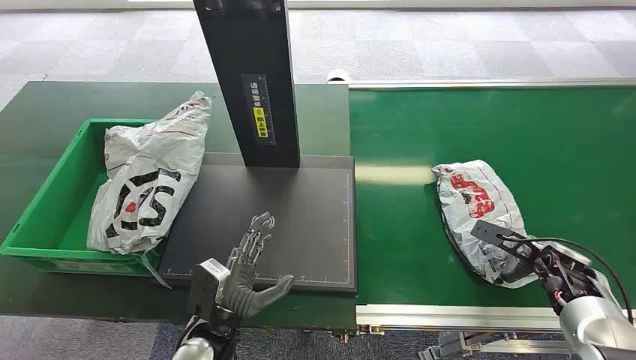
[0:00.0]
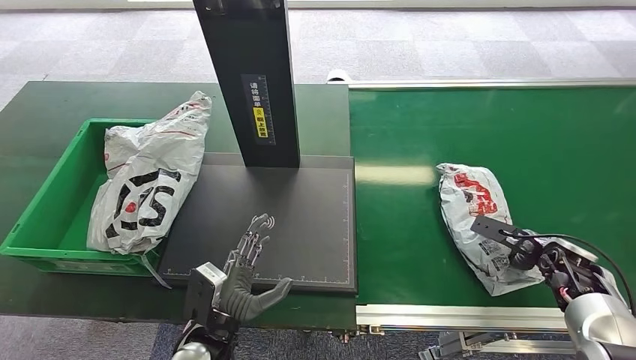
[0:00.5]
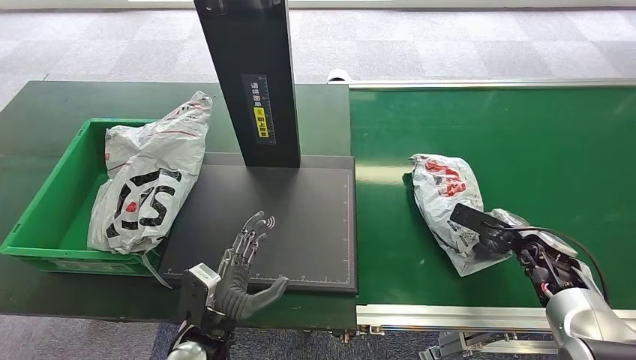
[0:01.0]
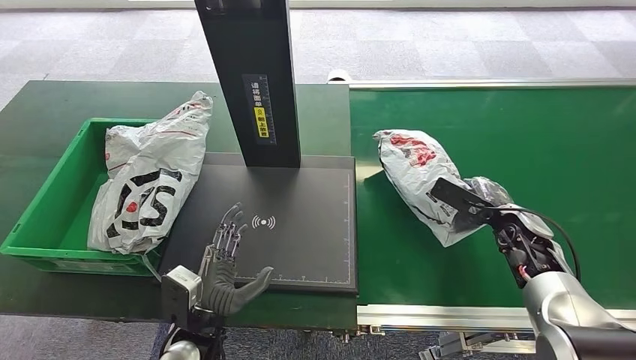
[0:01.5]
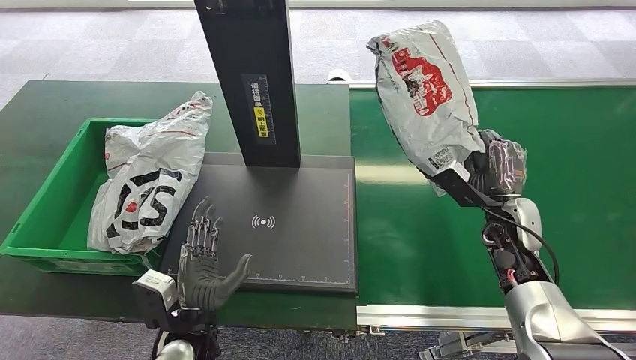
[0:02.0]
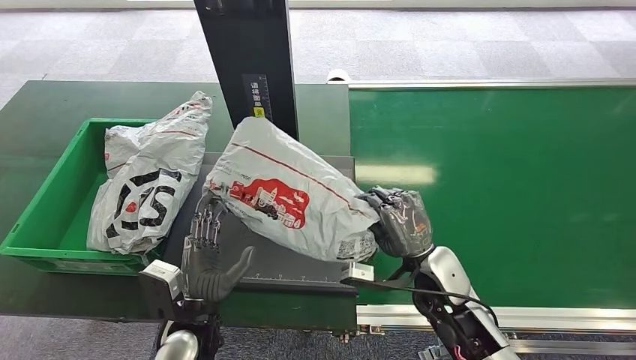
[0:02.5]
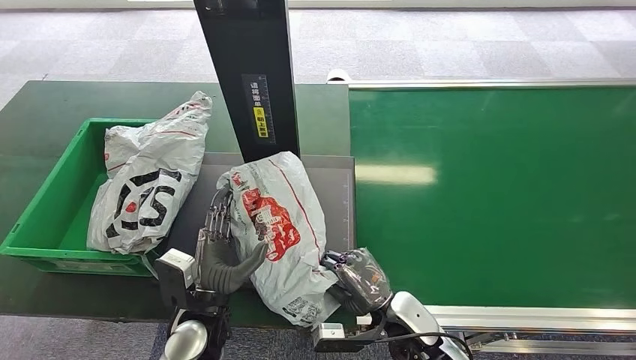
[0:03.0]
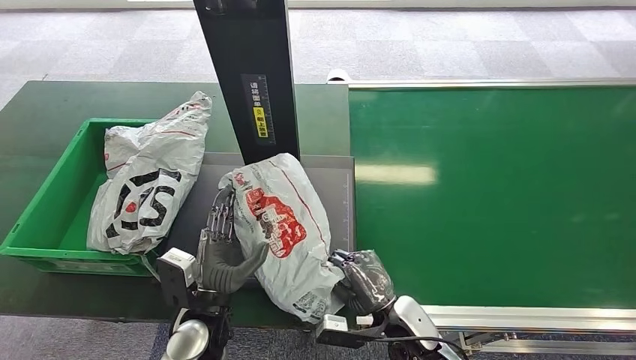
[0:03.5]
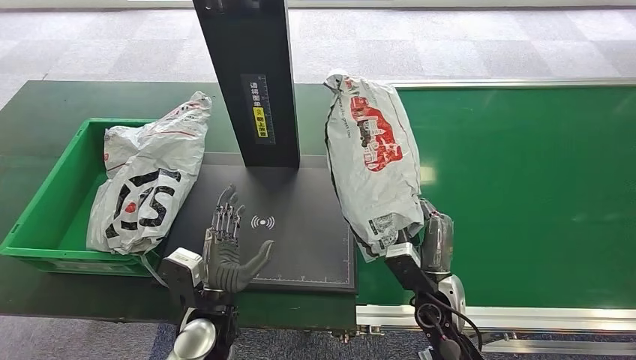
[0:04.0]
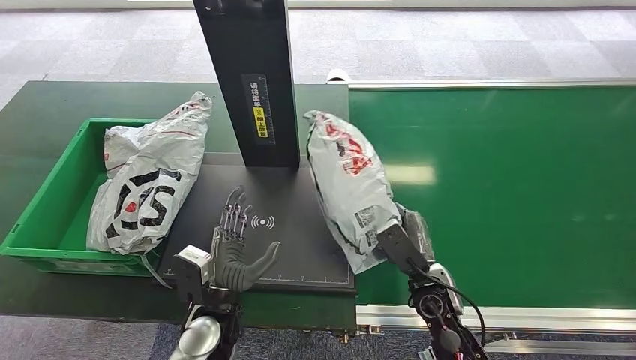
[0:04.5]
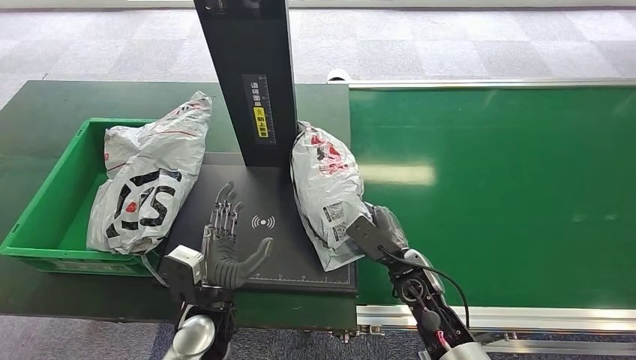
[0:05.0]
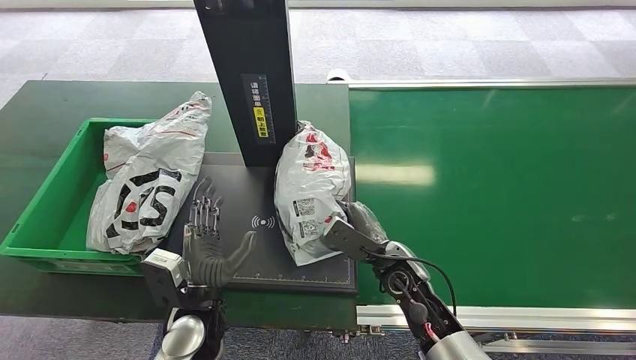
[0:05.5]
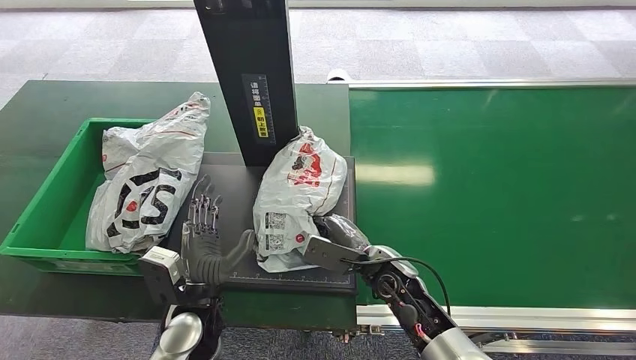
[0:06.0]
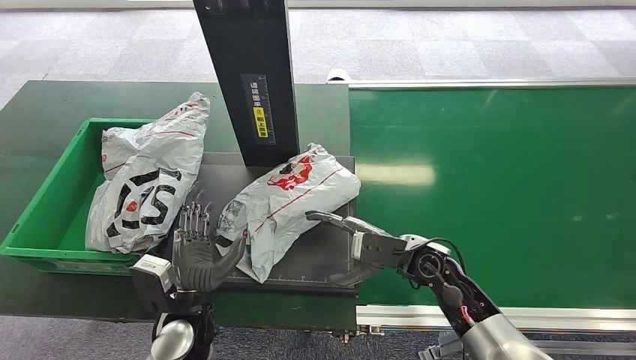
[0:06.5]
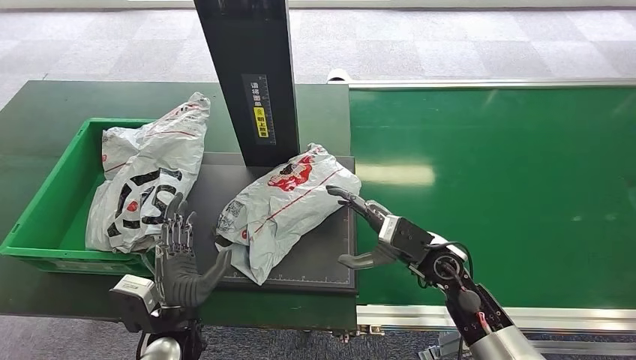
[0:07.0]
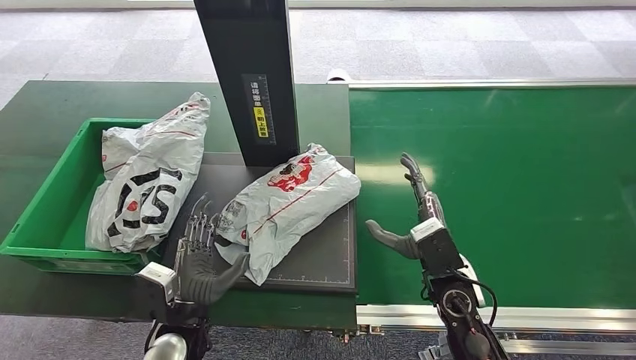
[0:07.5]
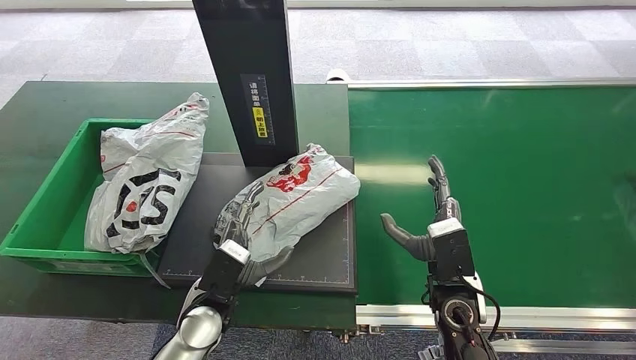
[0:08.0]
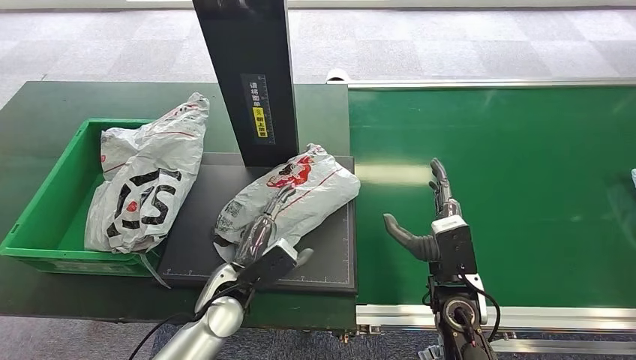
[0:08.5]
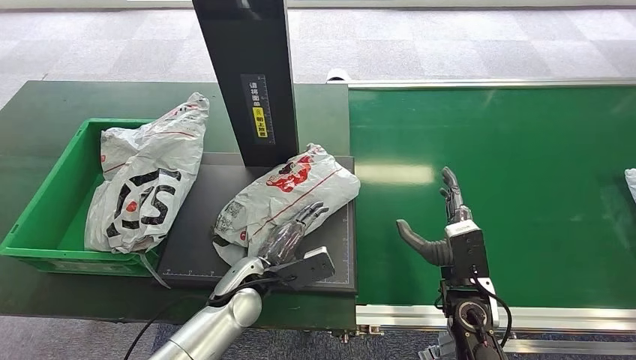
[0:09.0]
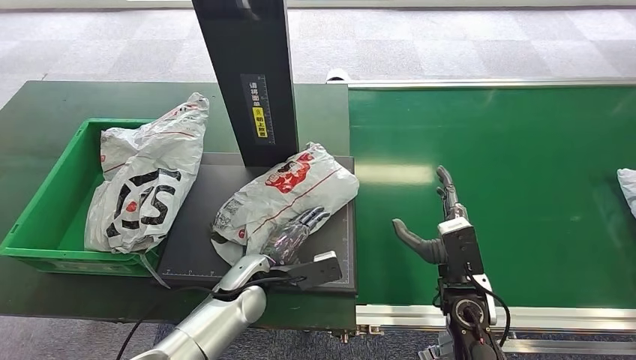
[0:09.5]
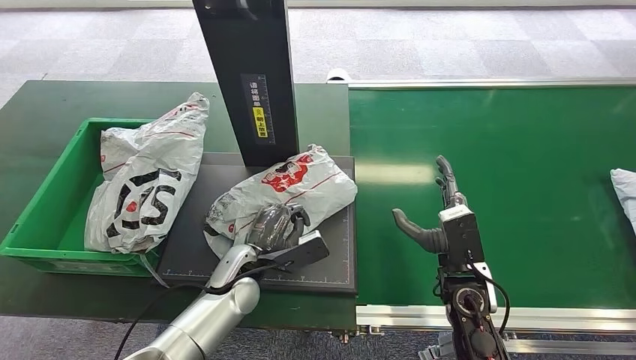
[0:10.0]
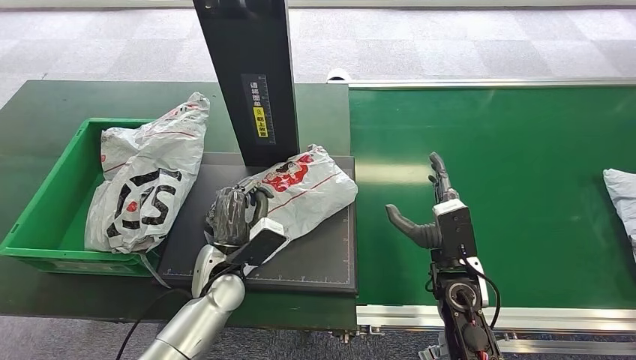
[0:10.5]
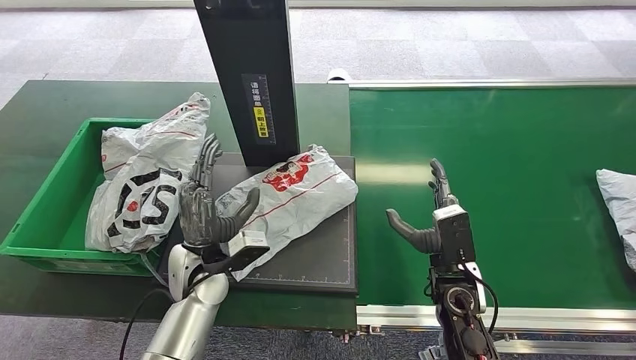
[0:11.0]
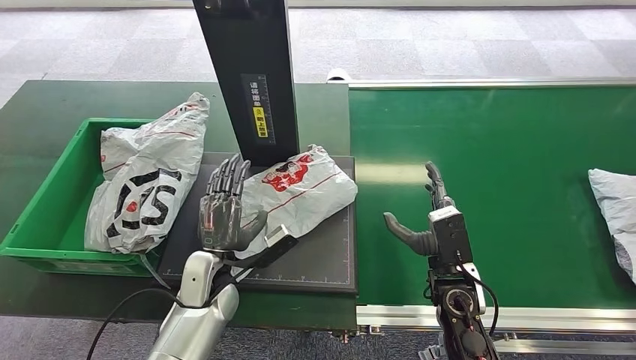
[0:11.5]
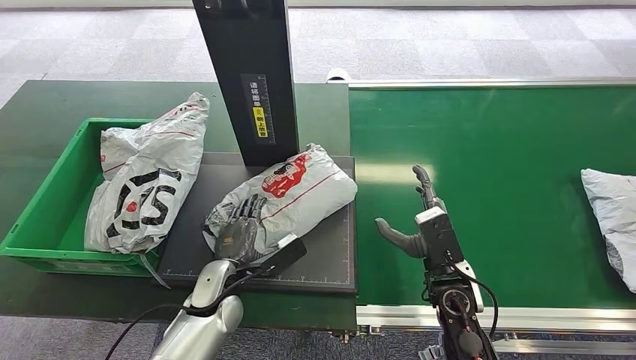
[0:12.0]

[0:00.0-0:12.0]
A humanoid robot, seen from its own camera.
Step, 0:00.0 to 0:02.0: Pick up the package from the conveyor belt.
Step, 0:02.5 to 0:06.5: Place the package onto the inbound machine.
0:04.0 to 0:06.0: The right hand travels to the left by roughly 5 cm.
0:06.0 to 0:08.0: The right hand travels to the right by about 5 cm.
0:08.0 to 0:10.0: The left hand moves forward, approximately 5 cm.

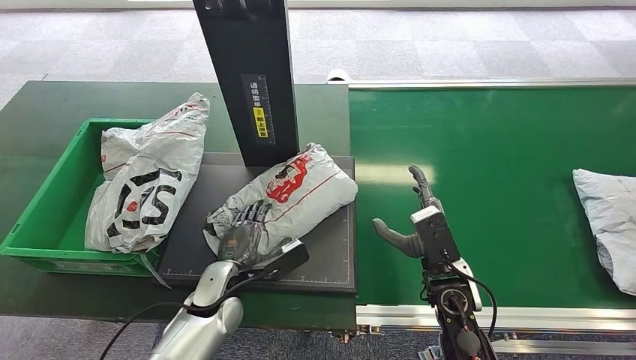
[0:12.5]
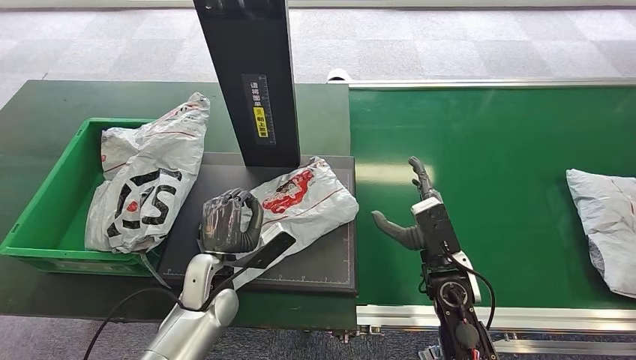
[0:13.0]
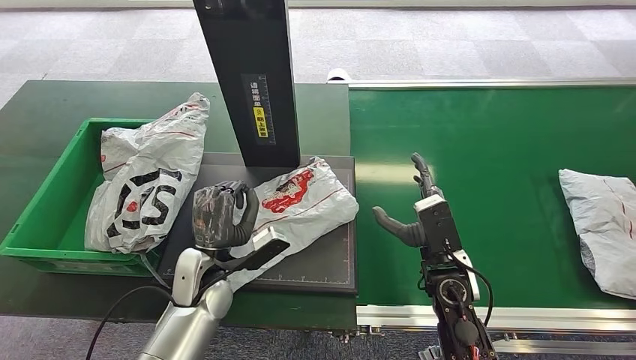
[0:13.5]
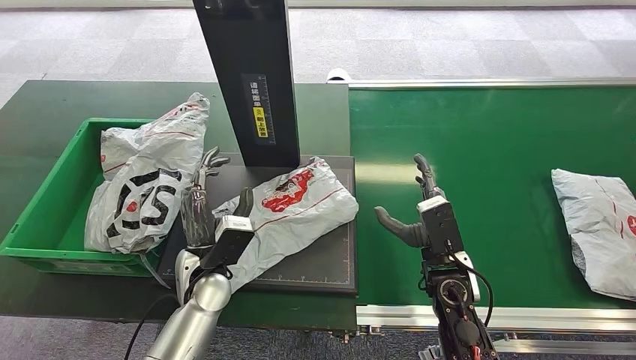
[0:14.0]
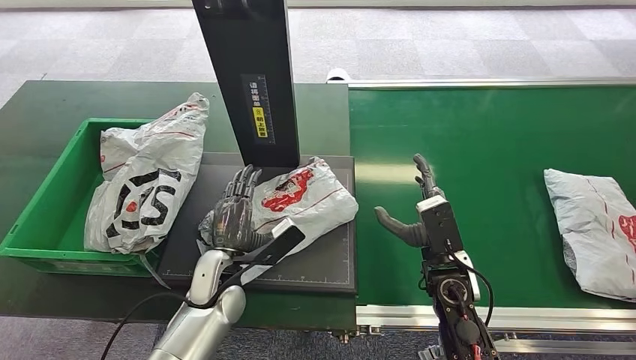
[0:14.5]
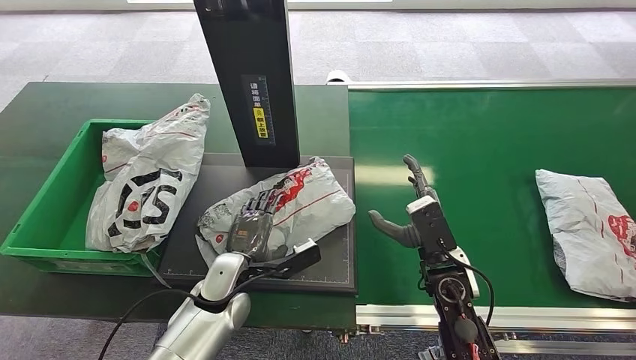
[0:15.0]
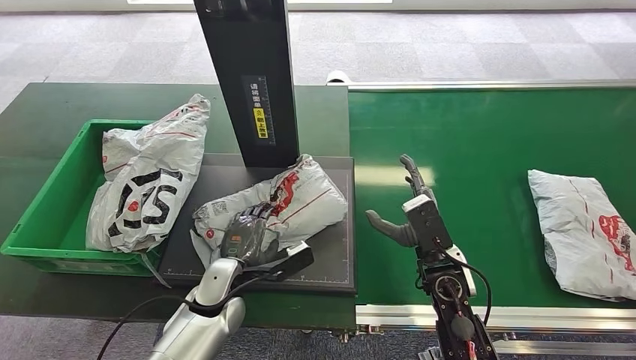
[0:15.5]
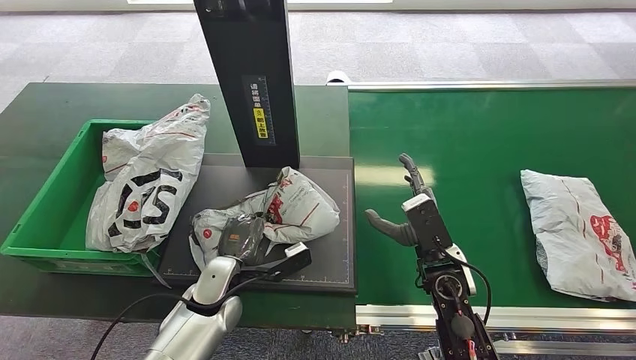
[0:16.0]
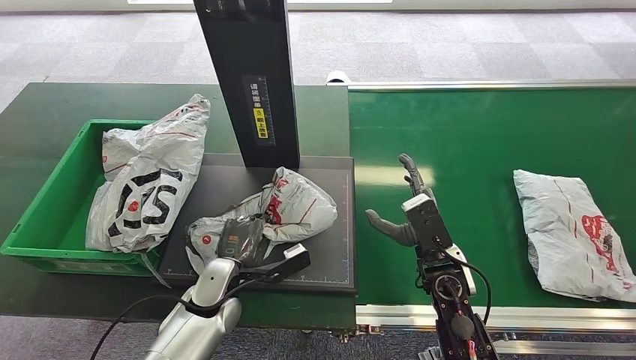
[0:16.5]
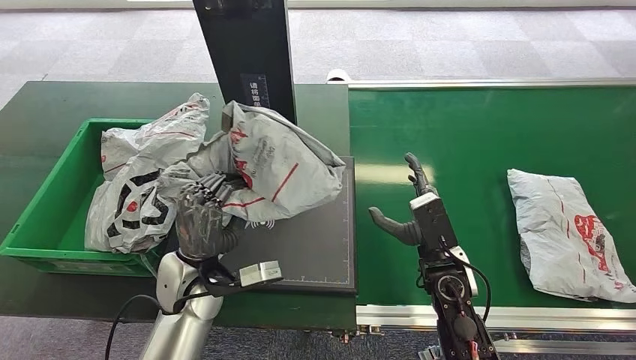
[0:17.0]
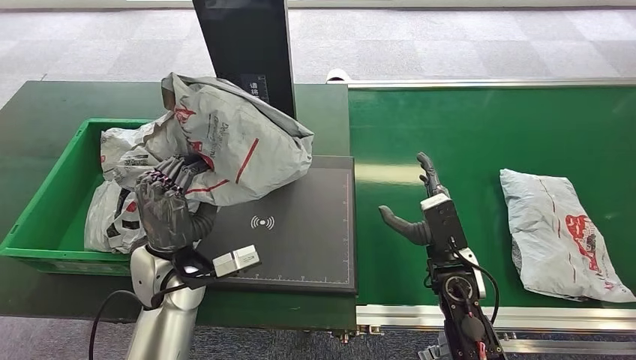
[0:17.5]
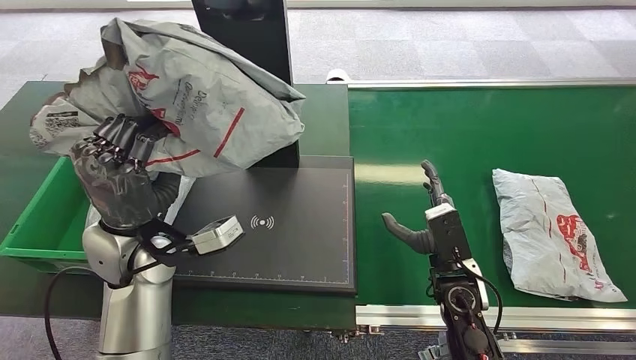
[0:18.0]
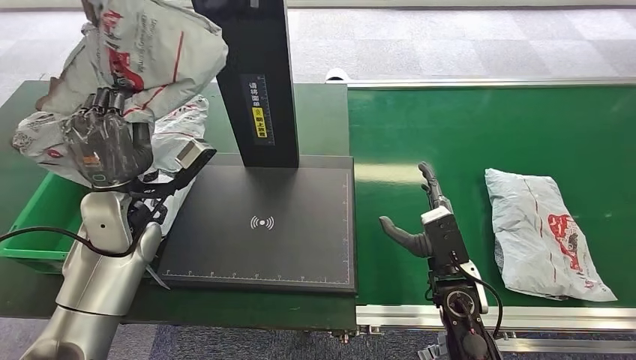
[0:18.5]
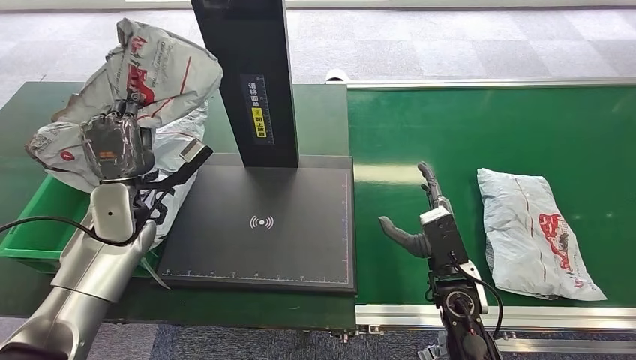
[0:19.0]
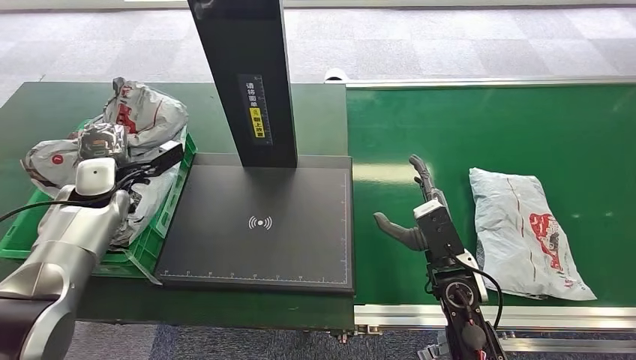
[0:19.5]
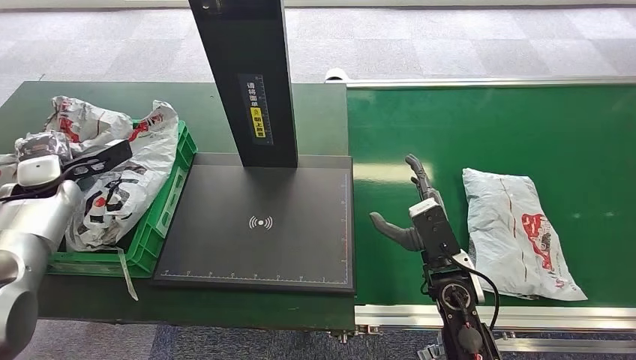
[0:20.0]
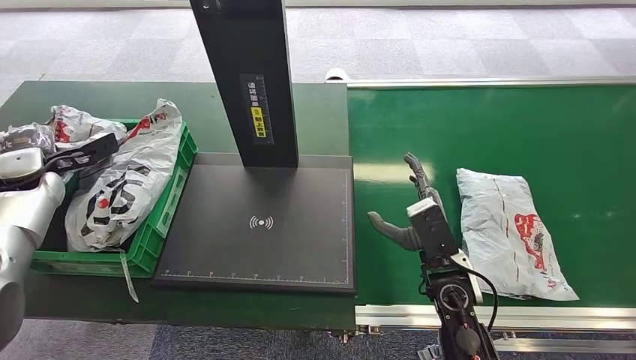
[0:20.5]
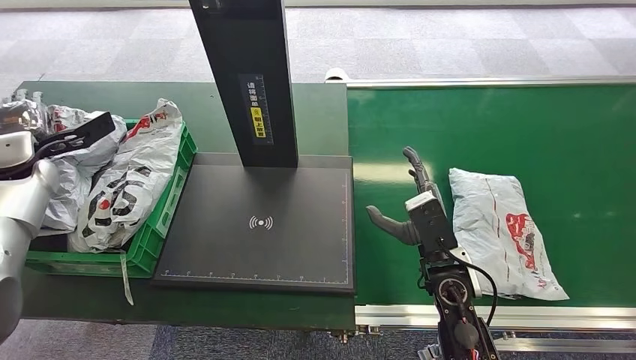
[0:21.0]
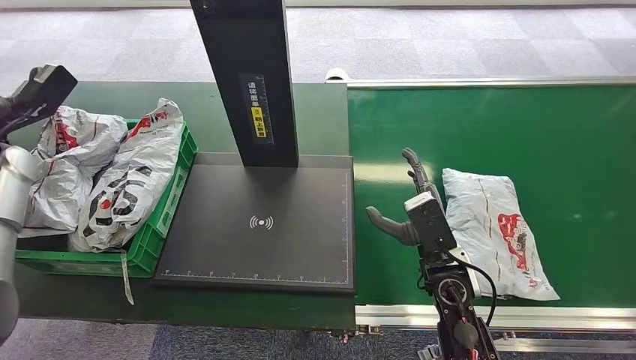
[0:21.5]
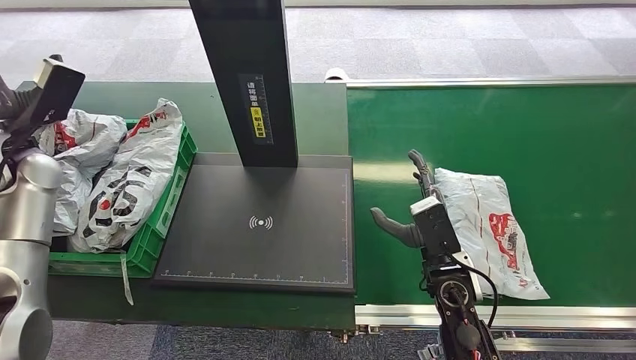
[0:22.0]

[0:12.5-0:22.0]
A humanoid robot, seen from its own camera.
Step, 0:14.0 to 0:17.0: Pick up the package from the inbound machine.
Step, 0:17.5 to 0:22.0: Place the package into the parcel locker.
0:20.0 to 0:22.0: The left hand is displaced upward by about 10 cm.
